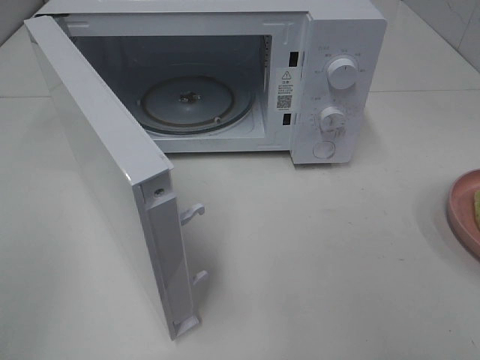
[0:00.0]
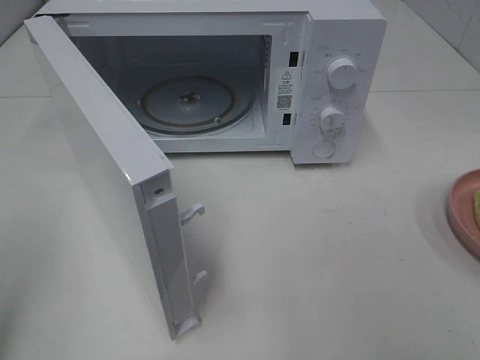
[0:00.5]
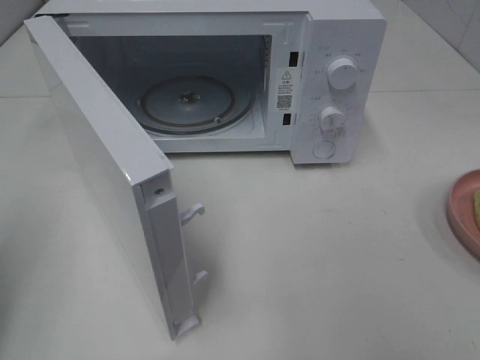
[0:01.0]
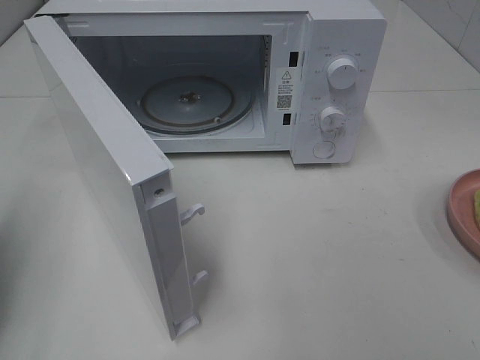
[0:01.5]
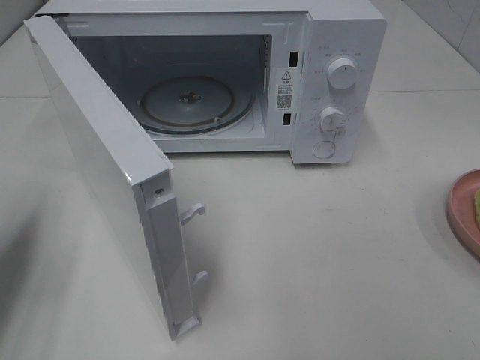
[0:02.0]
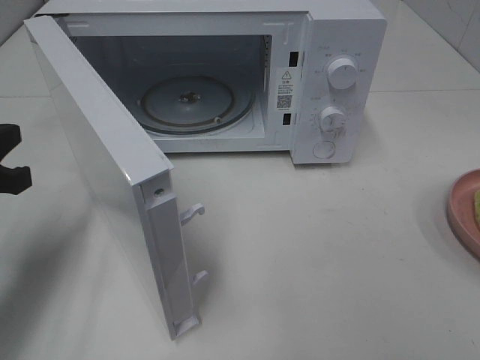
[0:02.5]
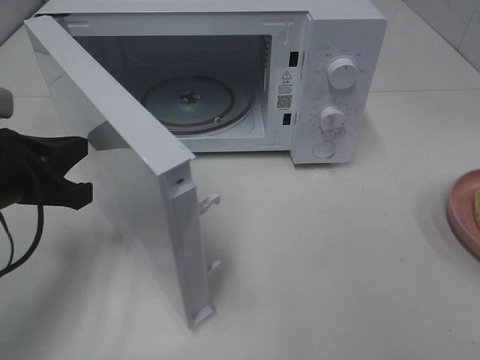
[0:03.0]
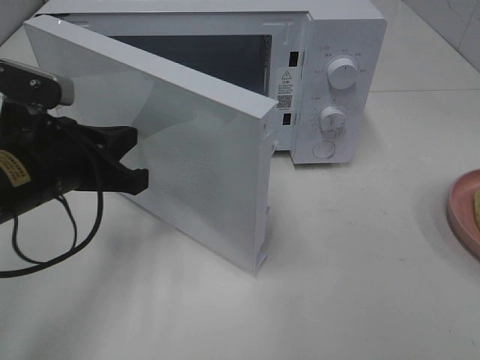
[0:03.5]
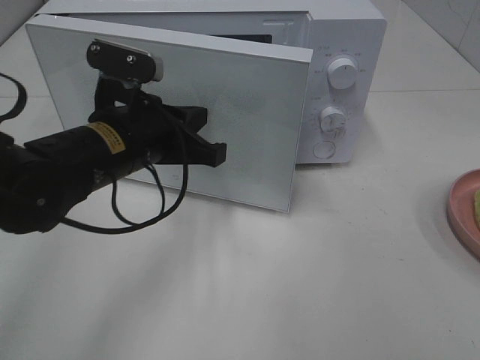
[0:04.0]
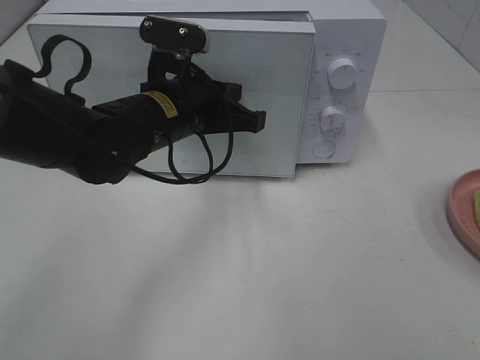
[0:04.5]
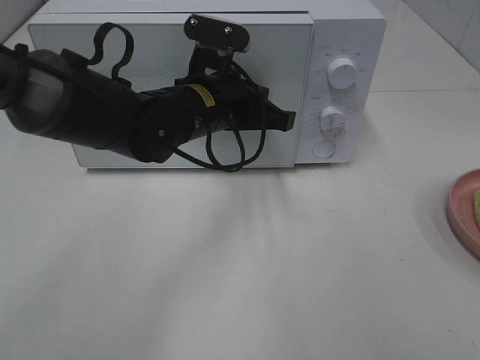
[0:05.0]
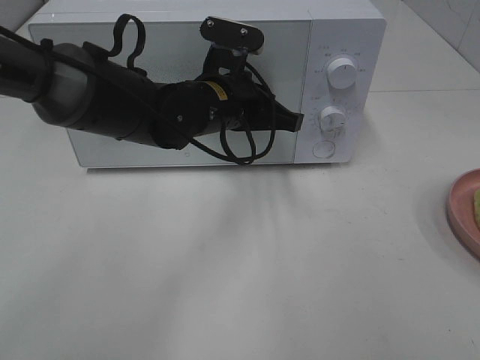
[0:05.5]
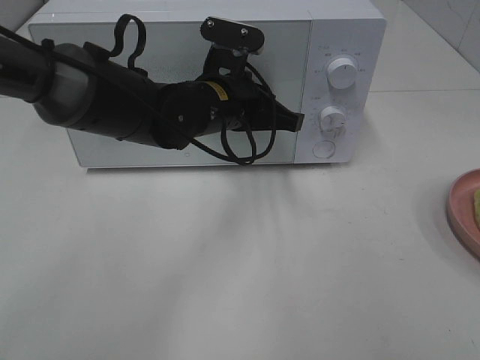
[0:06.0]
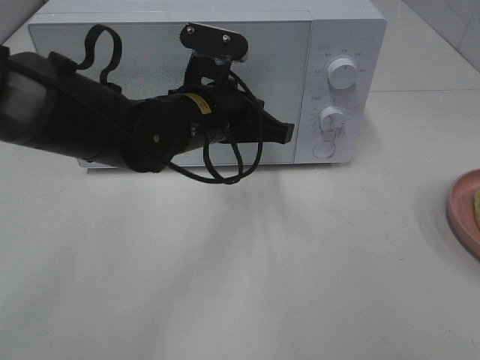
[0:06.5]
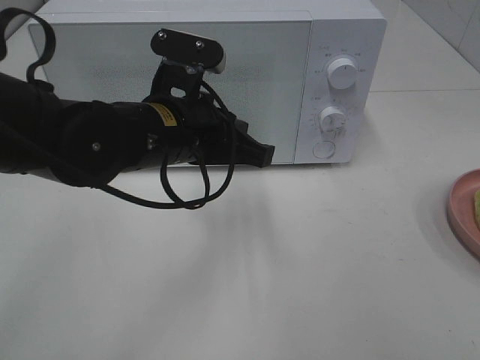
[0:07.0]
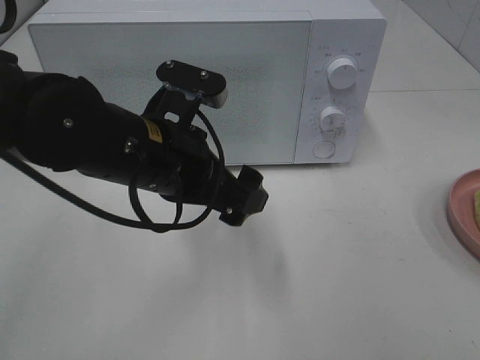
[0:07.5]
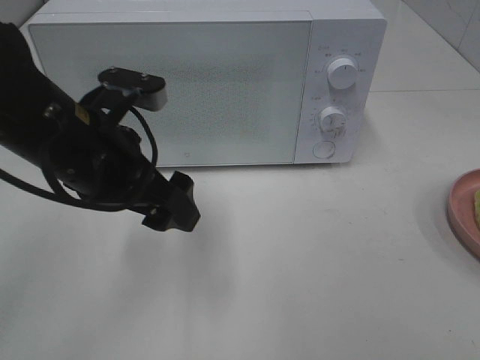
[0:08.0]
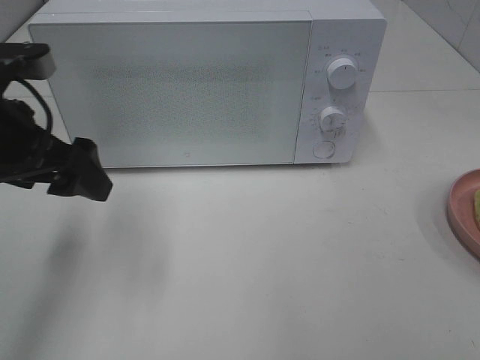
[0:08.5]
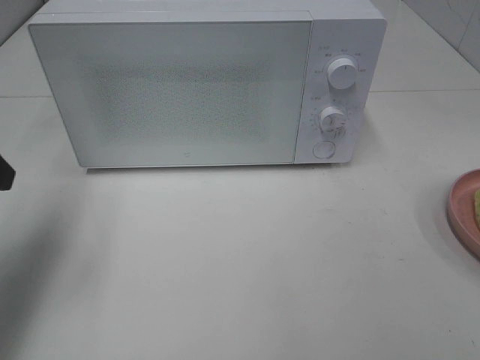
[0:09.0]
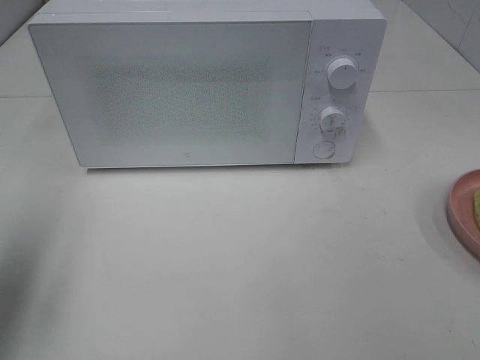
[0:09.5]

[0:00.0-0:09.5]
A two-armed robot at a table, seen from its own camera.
Task of the whole recording: Heat Sandwich.
Step, 0:00.0 to 0:06.5: Left hand: close the microwave door.
0:00.0 to 0:02.0: The left gripper is displaced forward and downward by some 20 cm, and closes up.
0:02.0 to 0:04.0: The left gripper moves to the right, approximately 20 cm.
0:04.0 to 0:05.5: The left gripper travels to the right and forward by about 10 cm.
0:05.5 to 0:07.5: The left gripper heads backward and to the left, covering about 15 cm, and opens.
0:07.5 to 0:09.5: The left gripper shifts some 25 cm to the left.

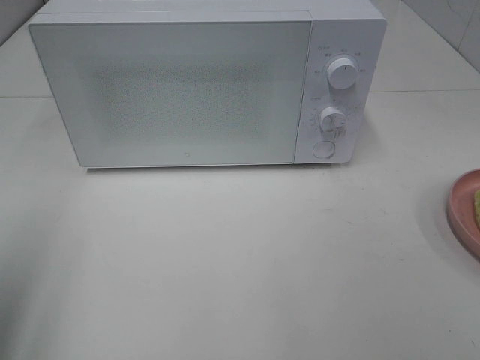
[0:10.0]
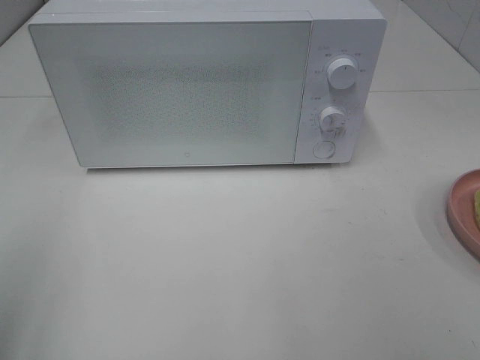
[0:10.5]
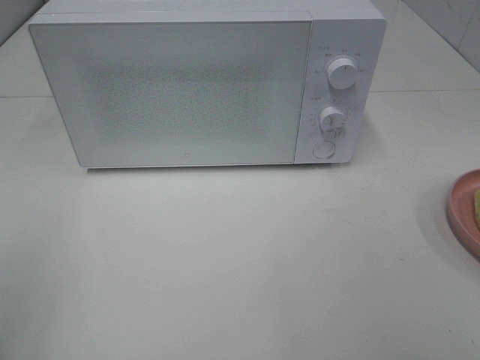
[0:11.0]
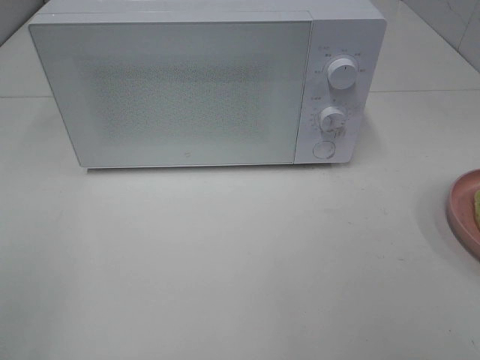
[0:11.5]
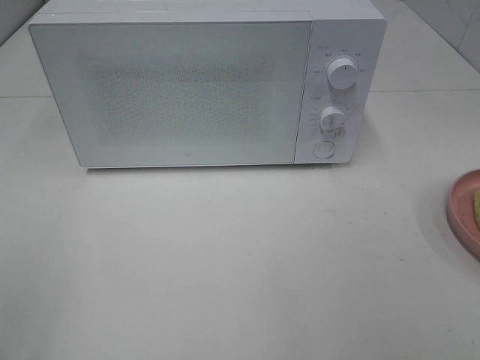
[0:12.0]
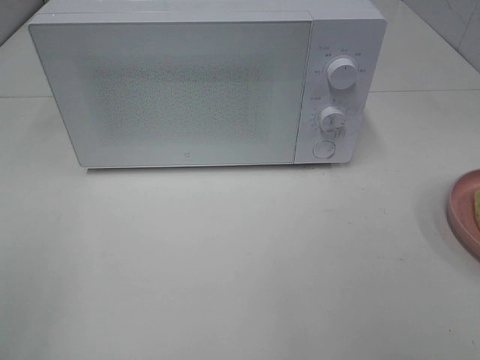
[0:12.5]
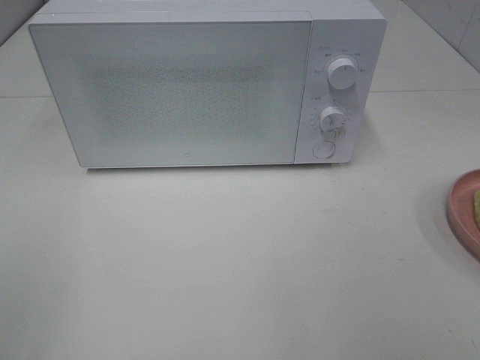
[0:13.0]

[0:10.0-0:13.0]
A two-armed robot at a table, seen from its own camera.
Task of the whole recording: Heat Sandwich.
0:10.0 to 0:11.5: The left gripper moves backward, about 10 cm.
0:11.5 to 0:13.0: Both grippers stay about where they are.

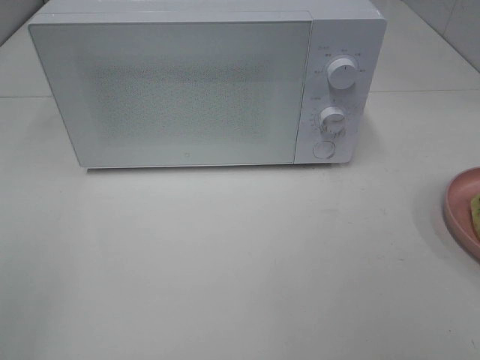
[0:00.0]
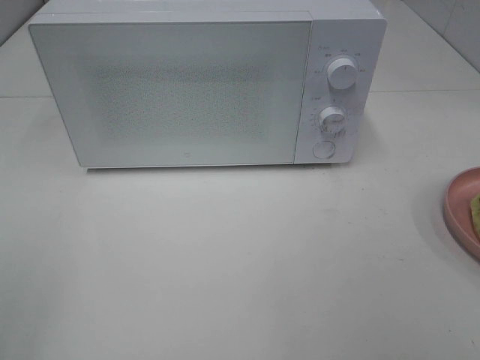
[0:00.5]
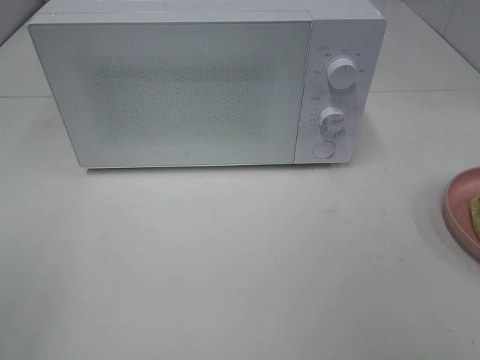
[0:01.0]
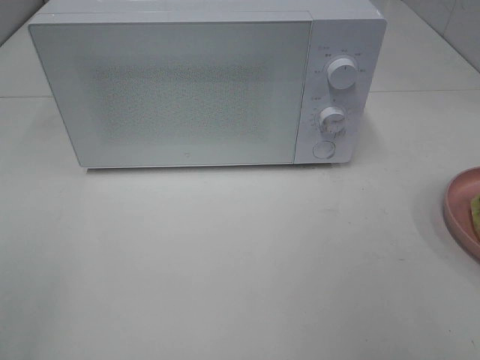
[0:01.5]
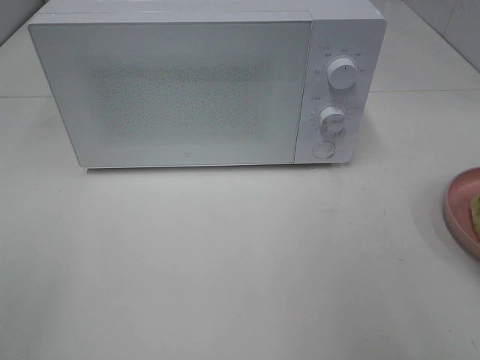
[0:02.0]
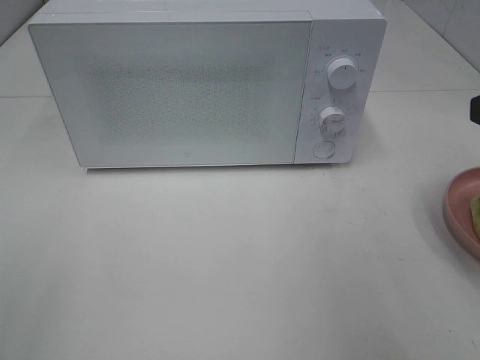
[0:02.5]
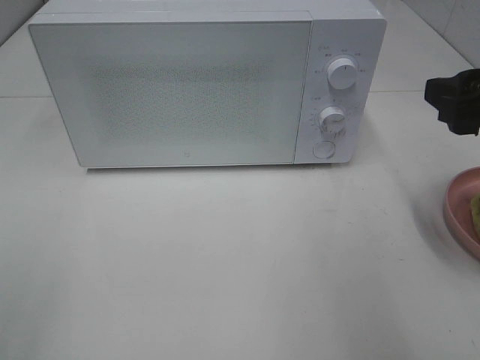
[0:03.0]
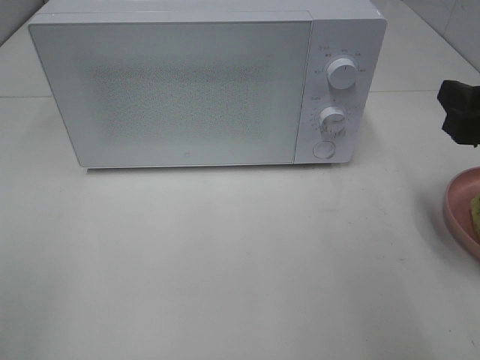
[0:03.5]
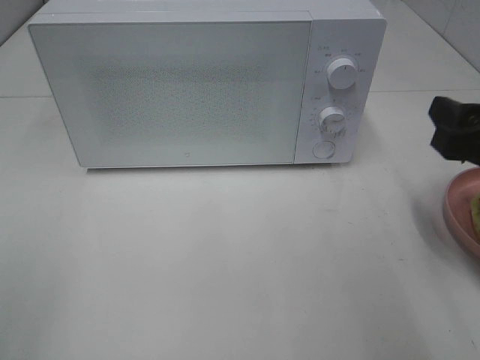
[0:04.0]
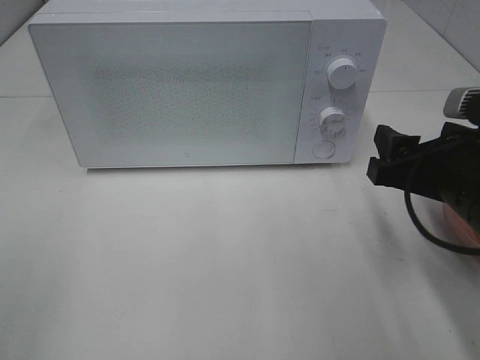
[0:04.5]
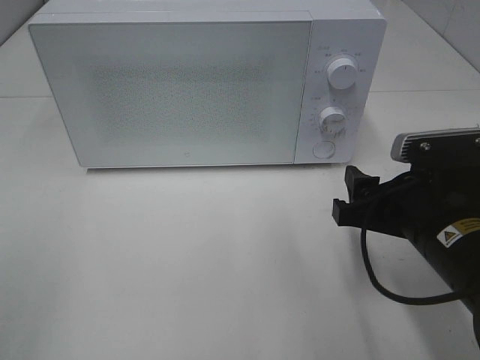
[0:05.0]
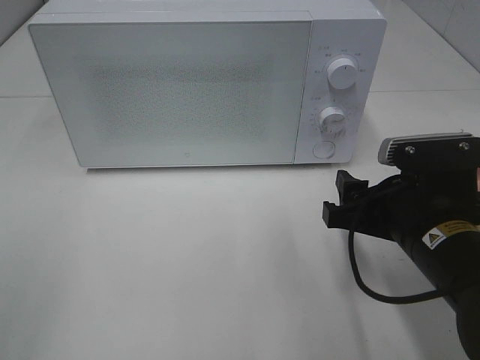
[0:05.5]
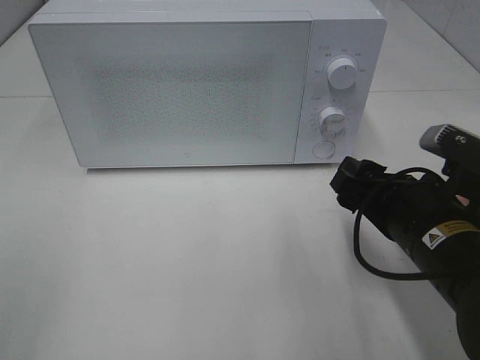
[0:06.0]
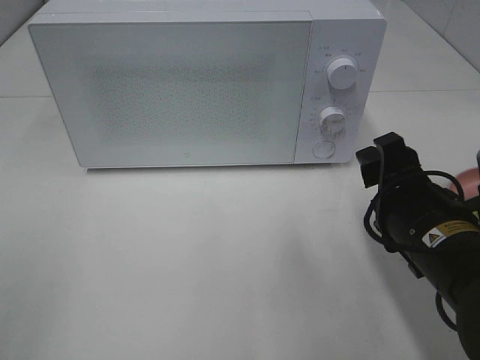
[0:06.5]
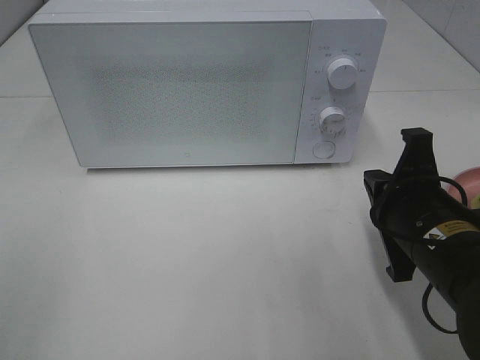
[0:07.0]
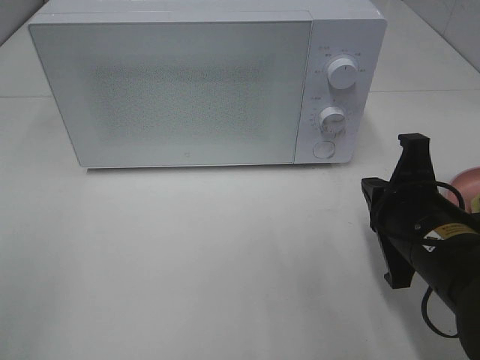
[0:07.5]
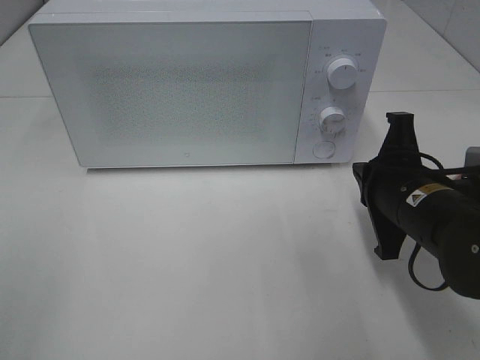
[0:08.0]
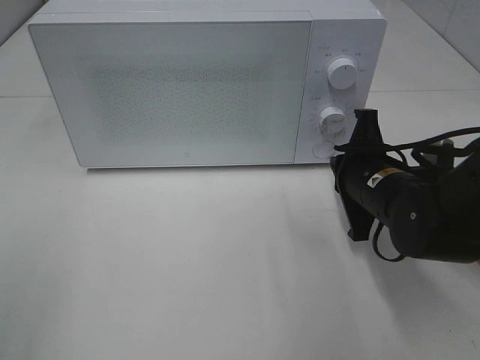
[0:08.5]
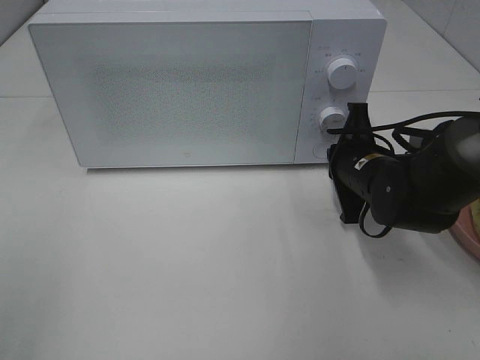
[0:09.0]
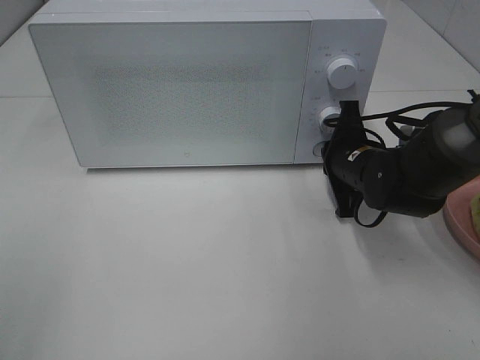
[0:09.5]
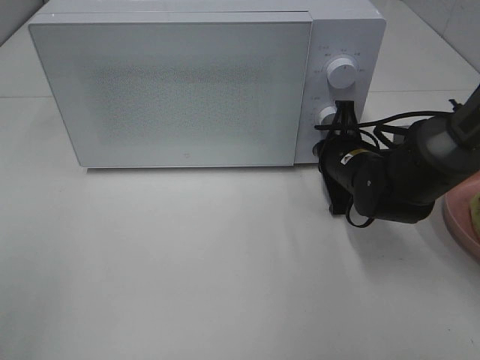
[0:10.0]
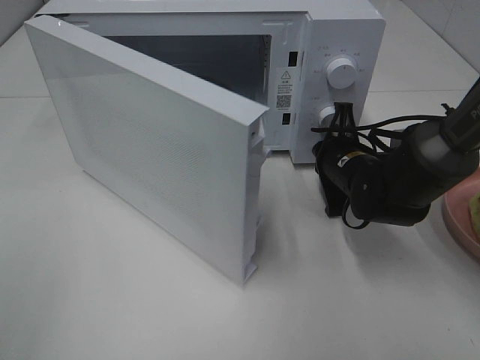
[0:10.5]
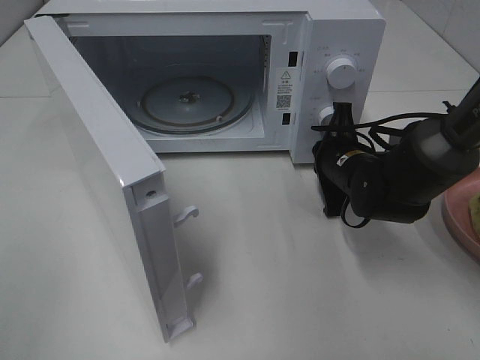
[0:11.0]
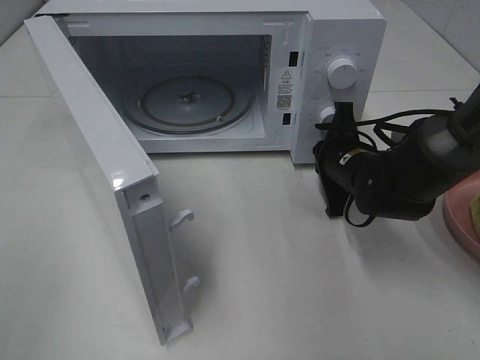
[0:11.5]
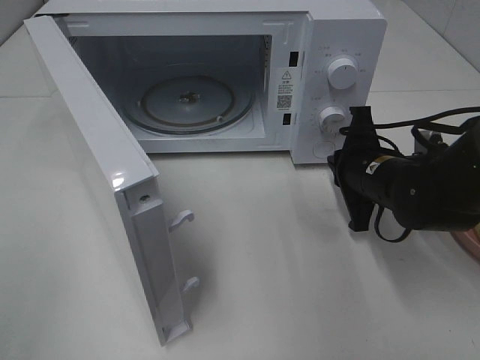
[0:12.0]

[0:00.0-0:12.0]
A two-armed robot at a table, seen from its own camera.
Task of the whole recording: Heat Sandwich.
0:02.0 to 0:04.0: The right gripper heads downward and forward, covering some 10 cm.
0:04.0 to 0:06.0: The right gripper moves to the left and downward, some 10 cm.
0:06.0 to 0:08.0: The right gripper closes.
0:08.0 to 0:10.0: The right gripper travels forward and downward by approximately 15 cm.

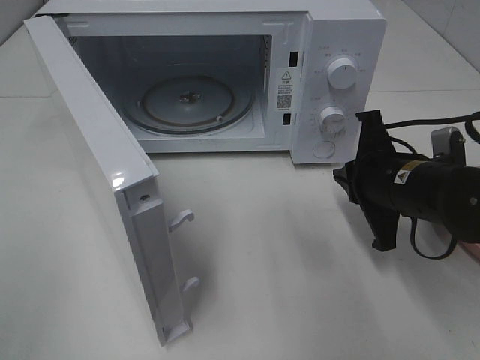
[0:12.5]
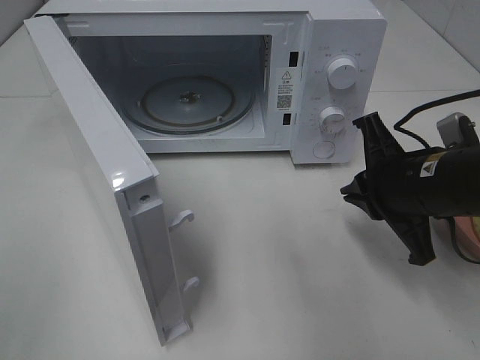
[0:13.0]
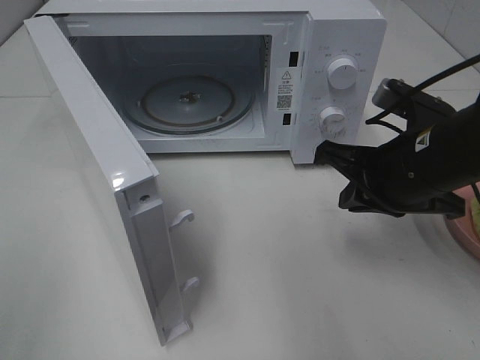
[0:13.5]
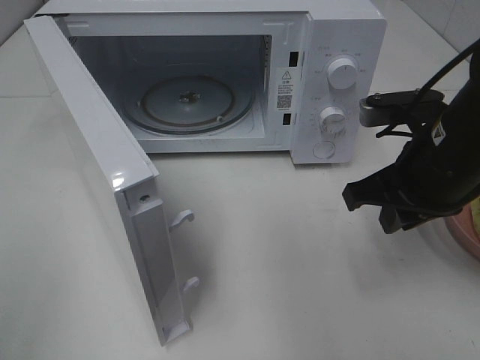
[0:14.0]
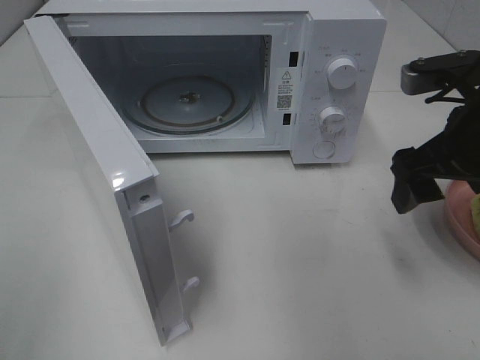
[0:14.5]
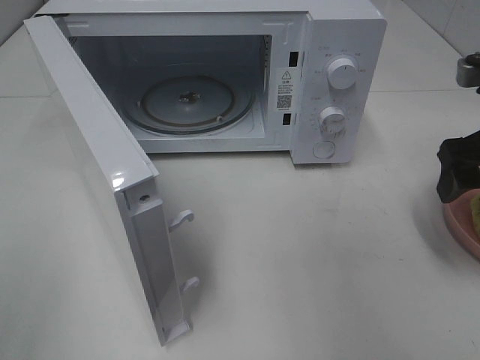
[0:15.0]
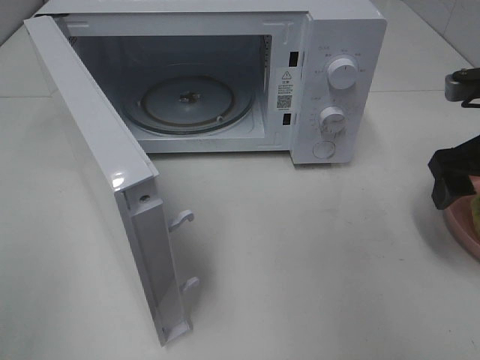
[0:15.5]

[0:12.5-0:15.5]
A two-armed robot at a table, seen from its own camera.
Task of the whole recording: Heat Sandwich.
0:12.5 to 0:14.0: The right gripper heads upward, covering about 5 cm.
0:14.0 to 0:15.5: The right gripper moves to the right, approximately 10 cm, and opens up.
